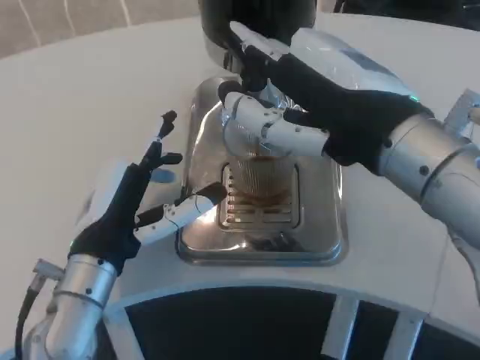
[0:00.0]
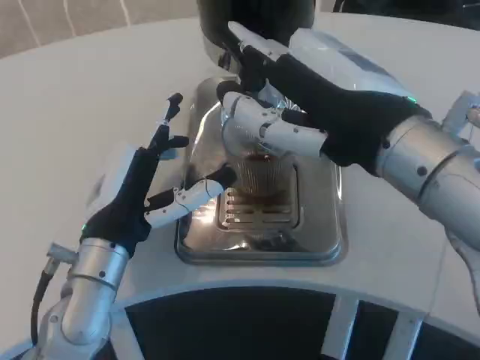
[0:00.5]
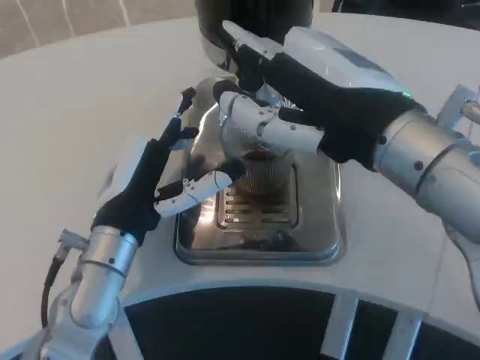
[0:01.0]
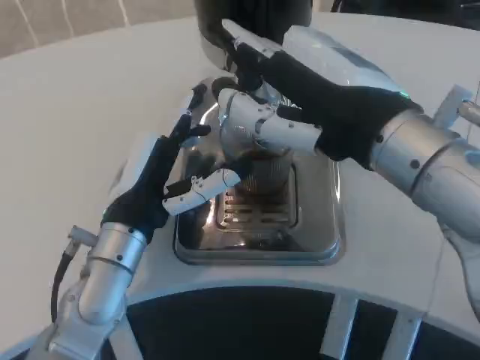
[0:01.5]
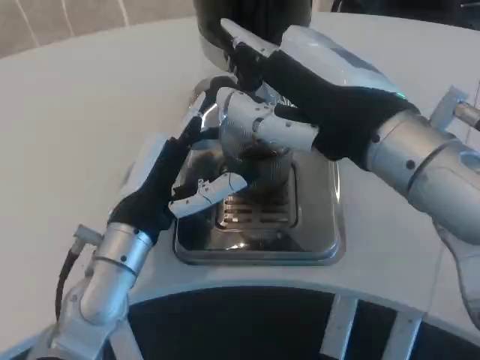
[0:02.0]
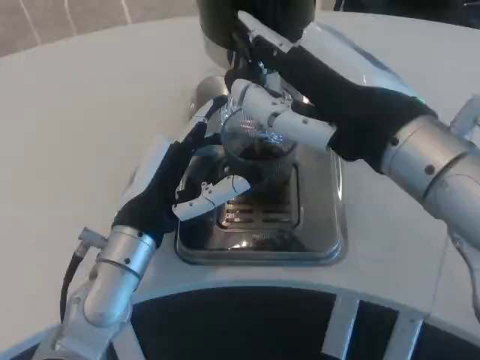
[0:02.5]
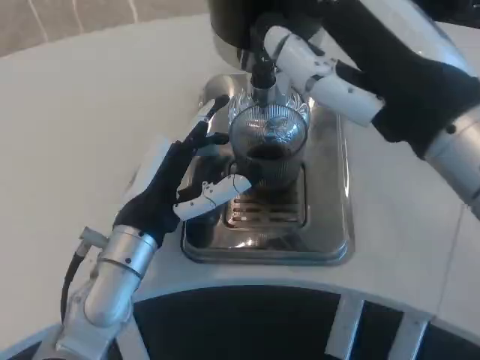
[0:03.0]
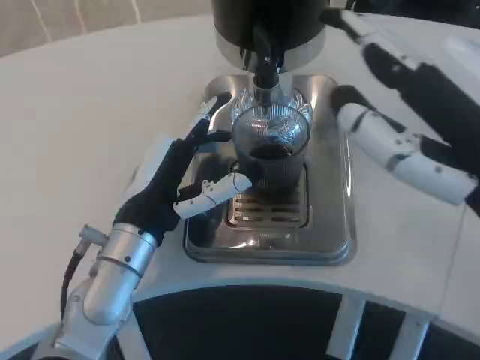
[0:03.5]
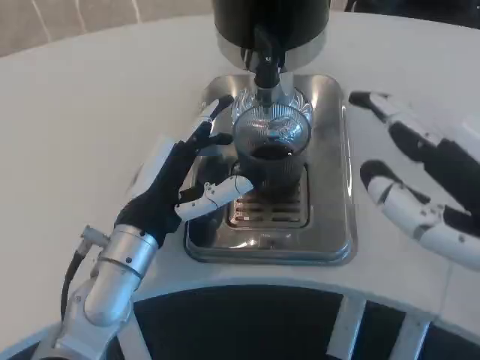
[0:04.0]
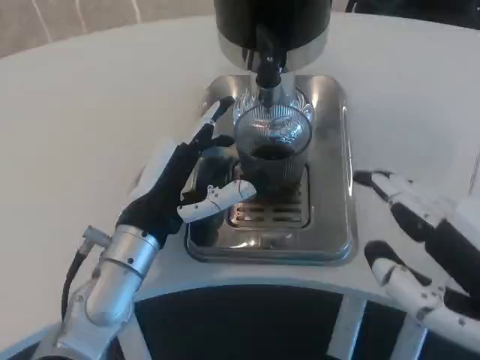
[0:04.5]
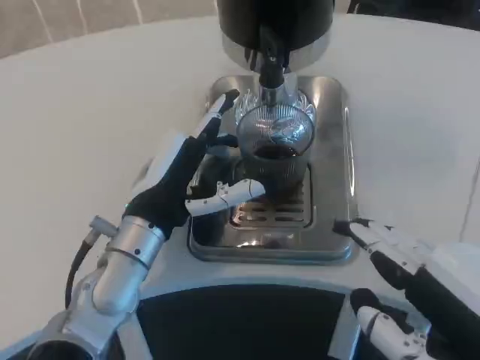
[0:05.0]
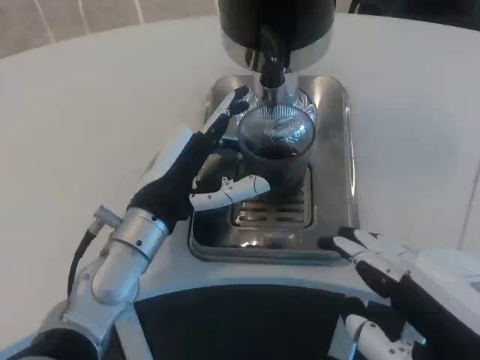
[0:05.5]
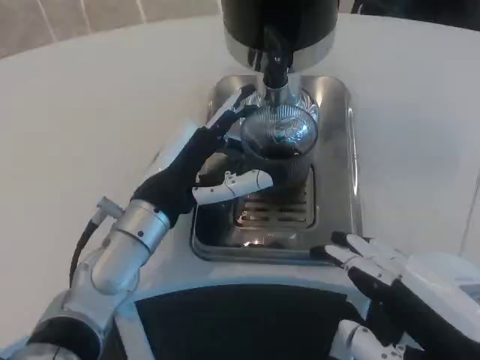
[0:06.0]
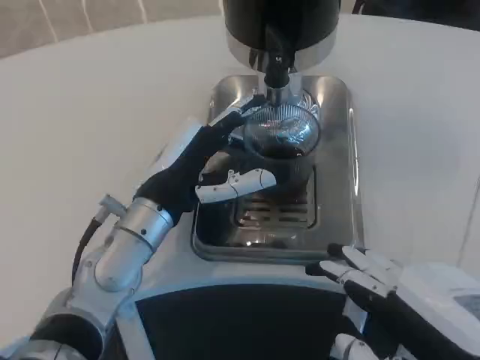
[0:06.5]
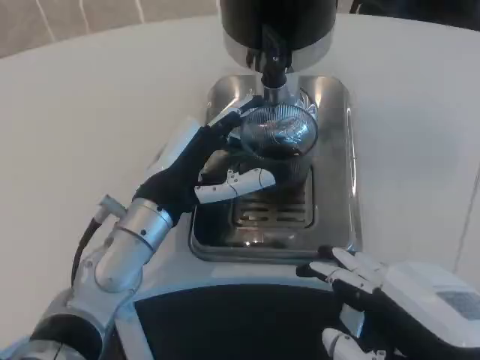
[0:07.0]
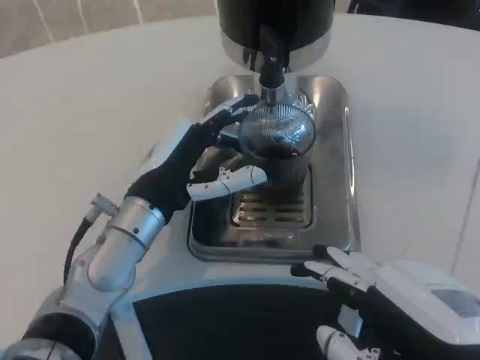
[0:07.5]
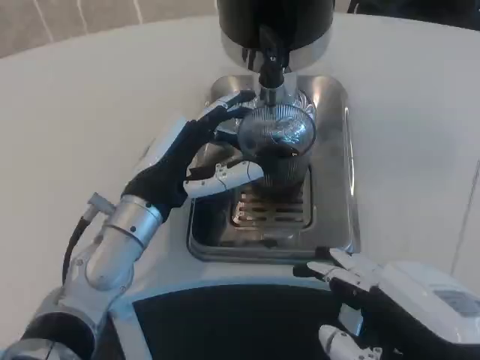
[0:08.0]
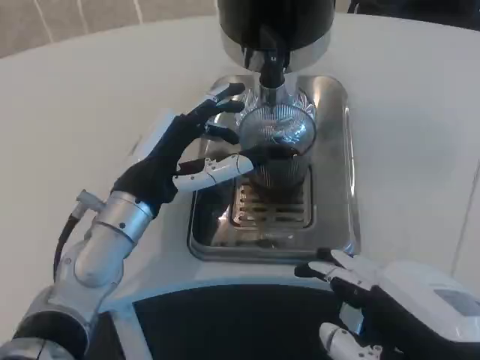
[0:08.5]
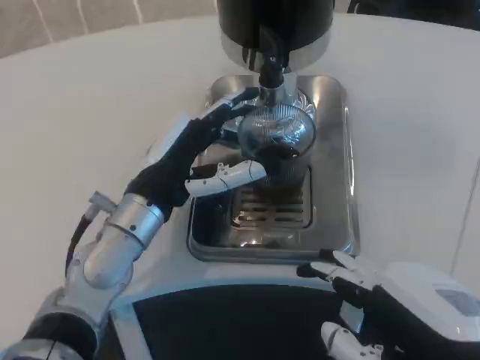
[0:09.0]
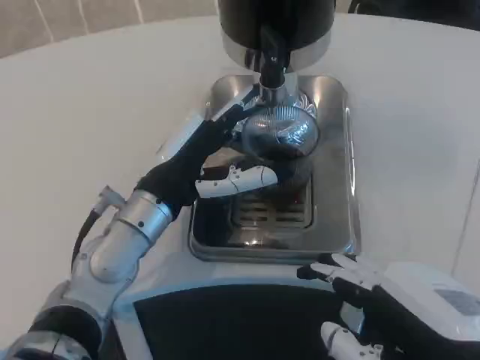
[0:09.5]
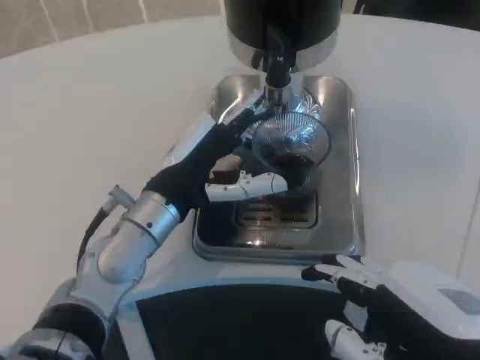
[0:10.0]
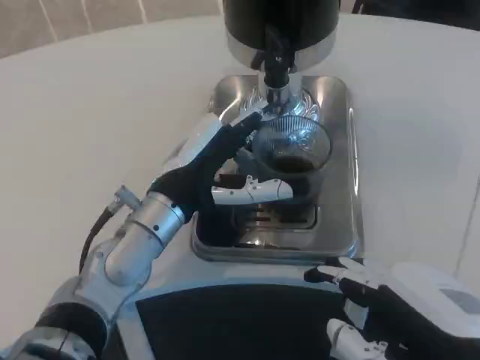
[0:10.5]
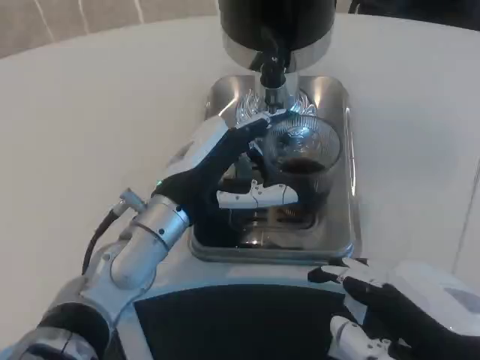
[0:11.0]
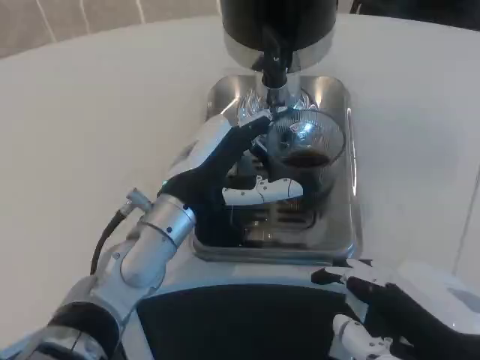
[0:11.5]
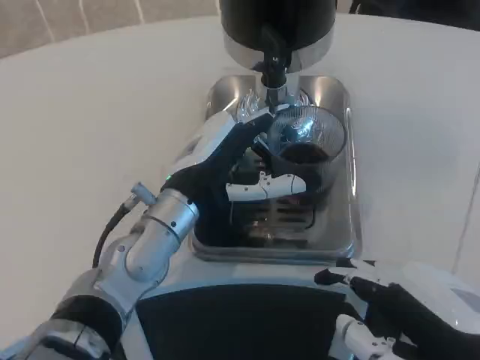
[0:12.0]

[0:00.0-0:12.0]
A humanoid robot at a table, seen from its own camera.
Task of the whole recording: Grasp the cup under the faucet to collect the drink, then remove the cup.
0:02.0 to 0:04.0: The right hand travels backward and to the right by roughly 15 cm.
0:04.0 to 0:06.0: The right hand shifts approximately 5 cm downward.
0:06.0 to 0:08.0: The two hands keep their place.
0:08.0 to 0:12.0: The hands move only a little.

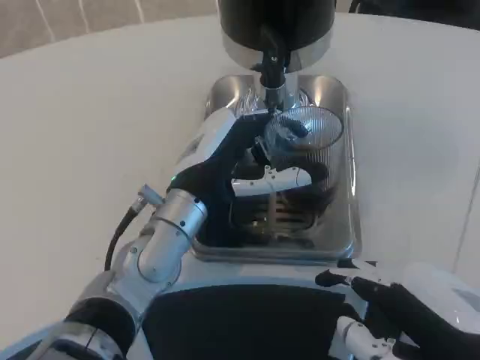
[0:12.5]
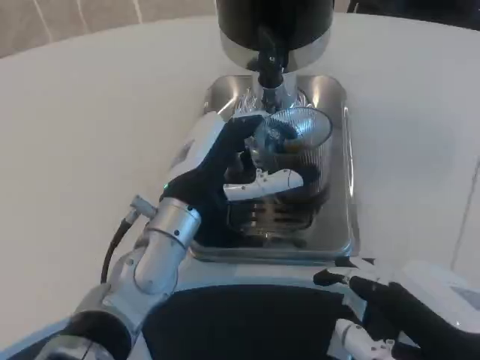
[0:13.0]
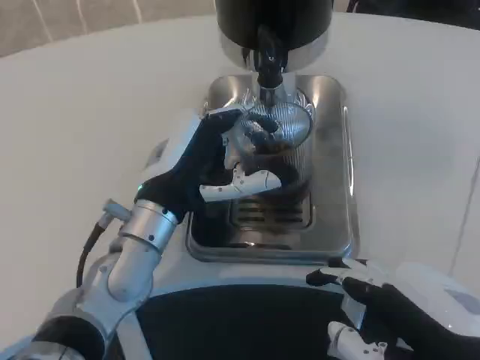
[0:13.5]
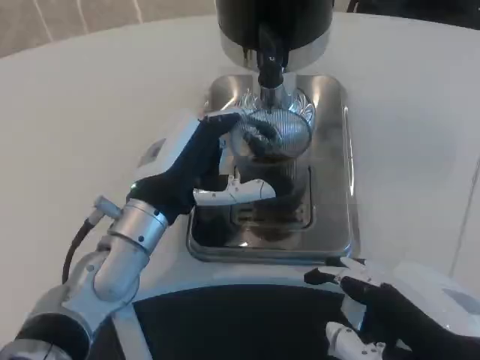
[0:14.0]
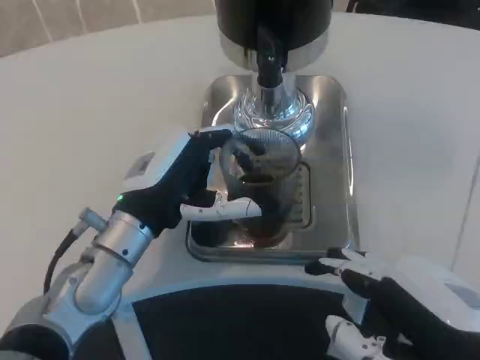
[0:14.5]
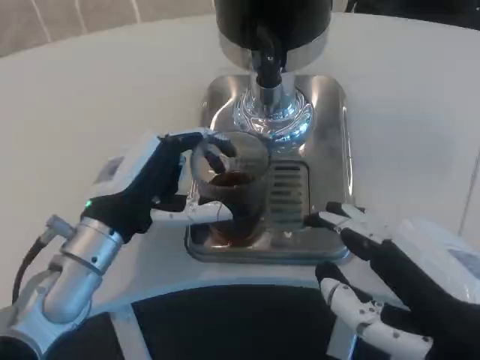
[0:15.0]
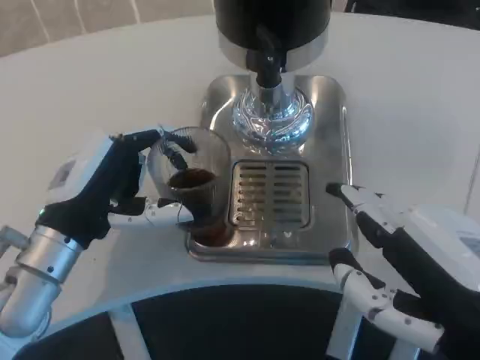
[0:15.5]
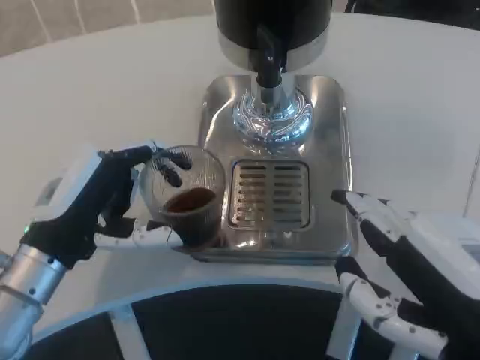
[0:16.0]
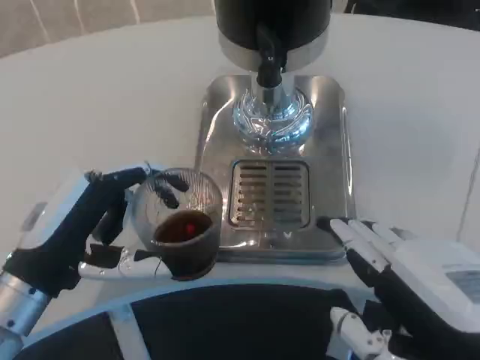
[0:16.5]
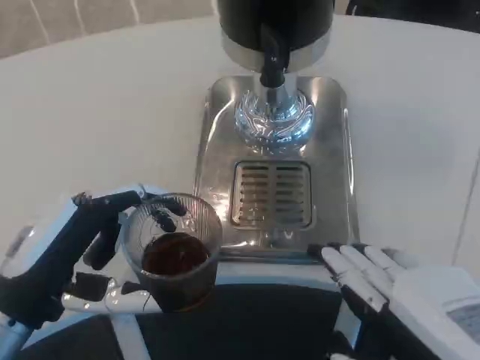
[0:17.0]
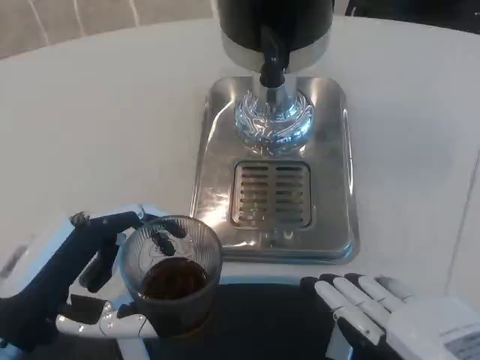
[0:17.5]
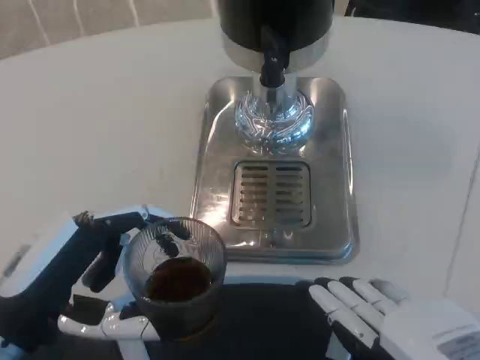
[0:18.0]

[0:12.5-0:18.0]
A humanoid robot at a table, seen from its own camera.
Task of the whole recording: Grasp the cup under the faucet to collect the drink, then remove the cup.
0:12.5 to 0:14.5: The left hand shifts about 5 cm to the left.
0:14.5 to 0:16.0: The left hand goes some 5 cm to the left.
0:16.0 to 0:18.0: The left hand goes roughly 5 cm backward.

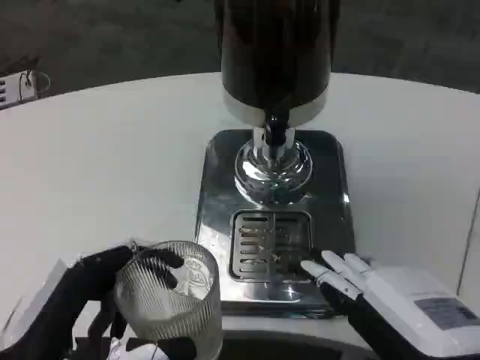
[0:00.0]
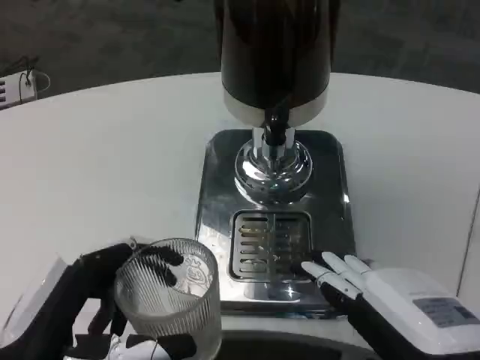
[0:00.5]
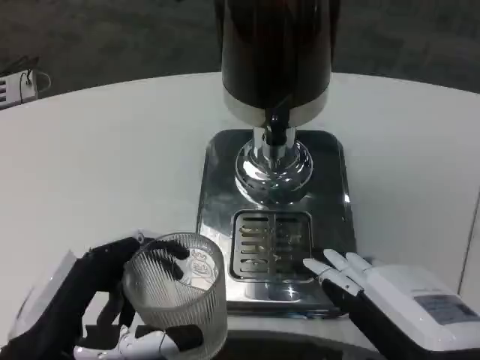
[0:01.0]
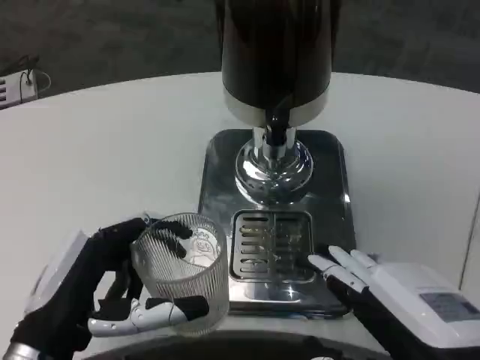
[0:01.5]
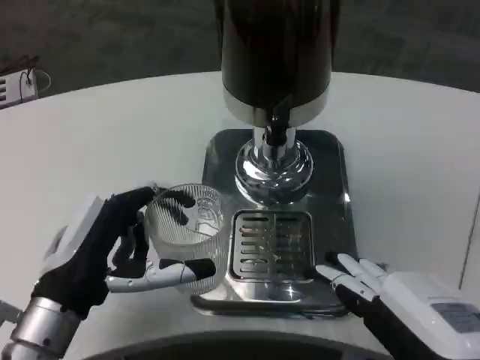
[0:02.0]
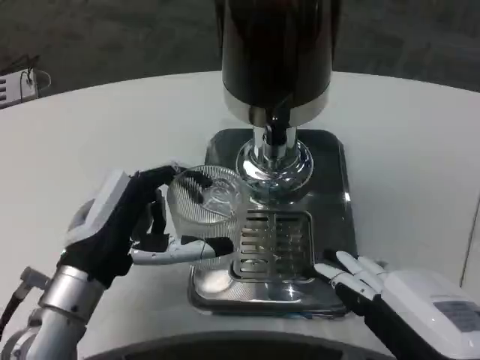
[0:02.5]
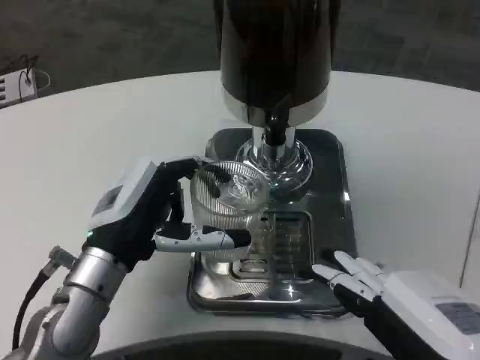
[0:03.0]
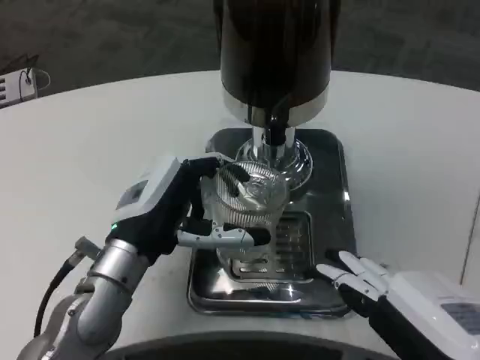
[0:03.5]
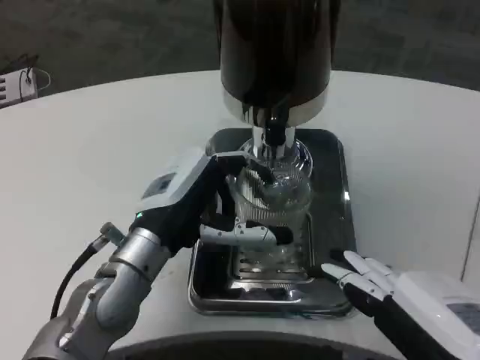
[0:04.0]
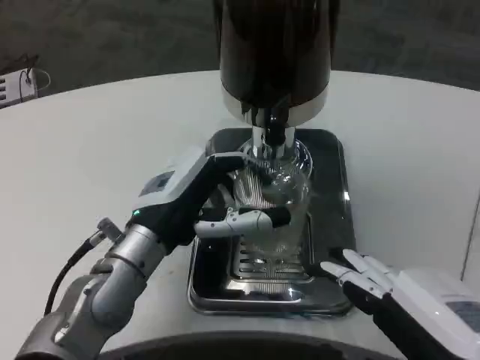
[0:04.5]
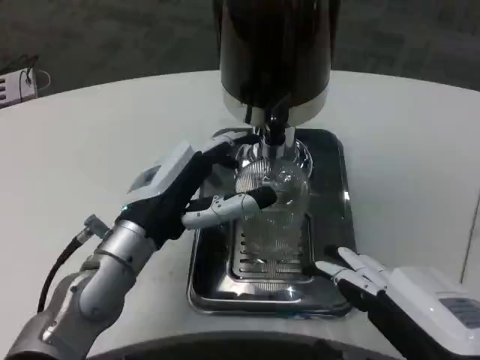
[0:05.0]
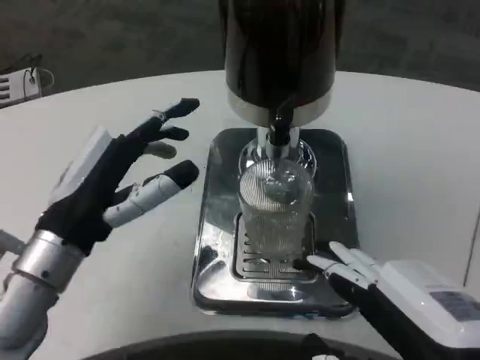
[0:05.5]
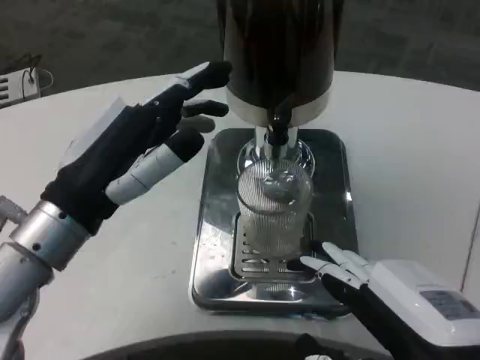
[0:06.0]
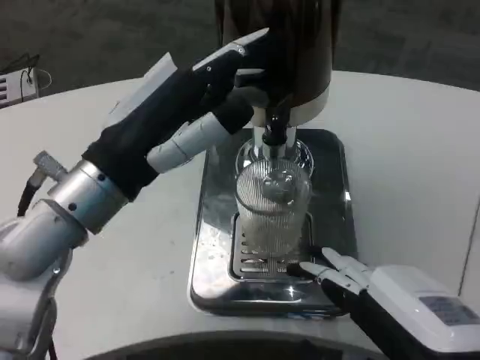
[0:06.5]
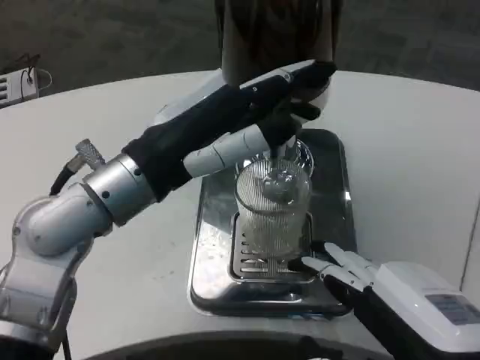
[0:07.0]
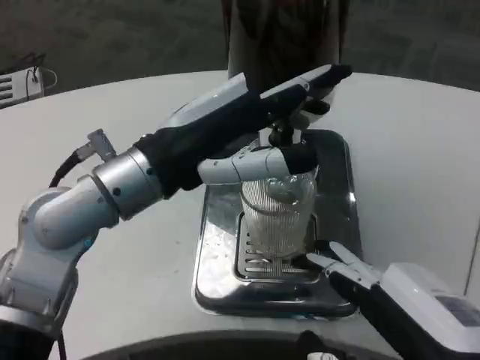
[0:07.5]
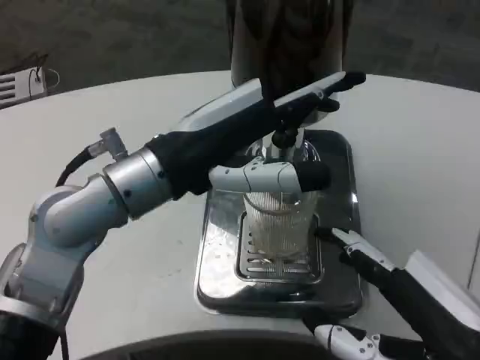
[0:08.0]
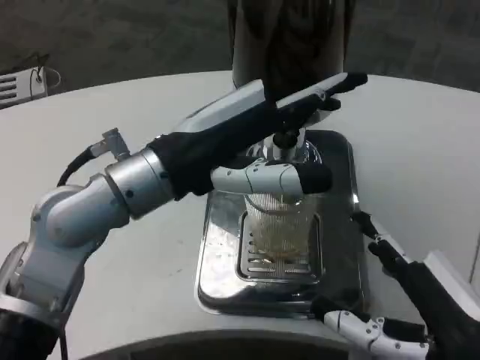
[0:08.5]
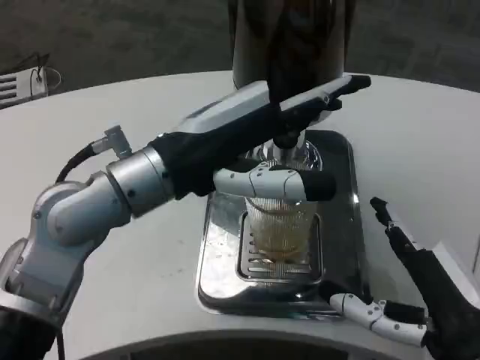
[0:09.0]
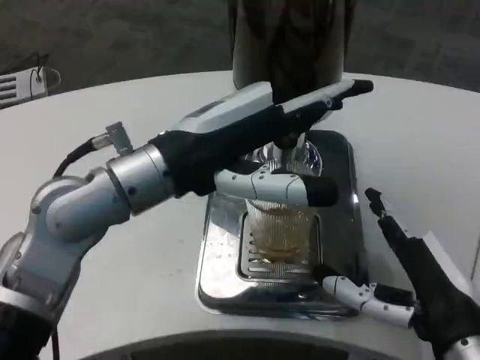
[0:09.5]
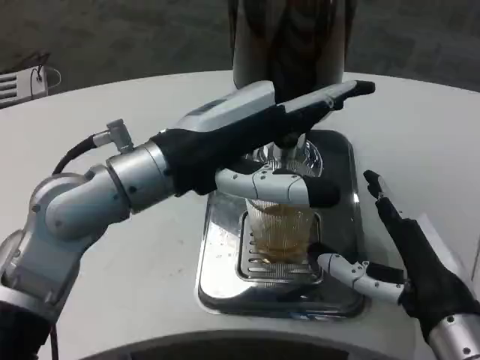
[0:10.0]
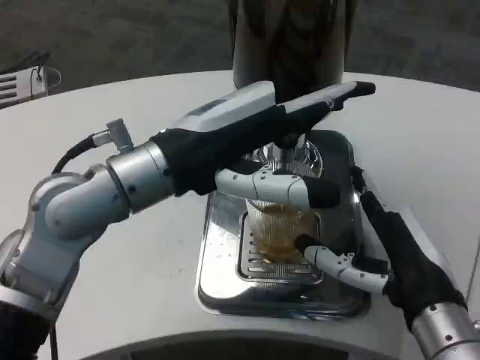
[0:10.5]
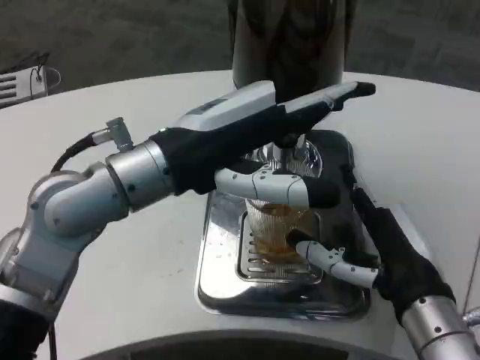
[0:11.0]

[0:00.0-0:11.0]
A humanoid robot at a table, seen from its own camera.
Task of the whole recording: Grasp the cup under the faucet to collect the drink, then remove the cup.
0:00.0 to 0:02.0: The left hand goes approximately 10 cm forward.
0:02.0 to 0:03.5: The left hand travels forward and to the right by some 10 cm.
0:03.5 to 0:05.5: The left hand moves to the left, approximately 5 cm.
0:05.5 to 0:07.5: The left hand goes approximately 10 cm upward and to the right.
0:07.5 to 0:09.0: The right hand goes roughly 5 cm forward.
0:09.0 to 0:11.0: The right hand travels forward by roughly 5 cm.
